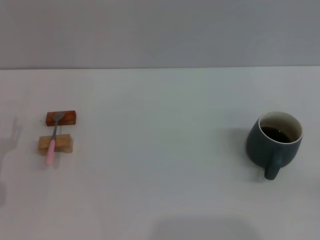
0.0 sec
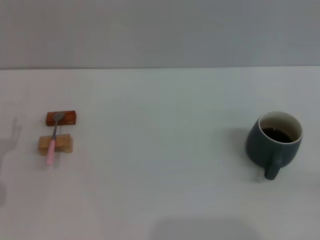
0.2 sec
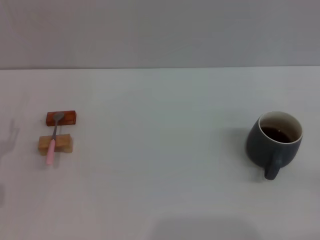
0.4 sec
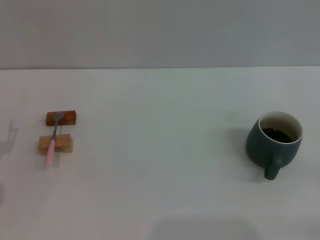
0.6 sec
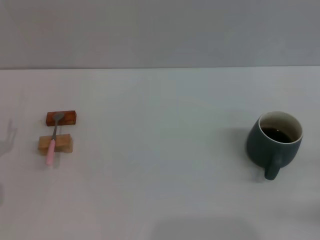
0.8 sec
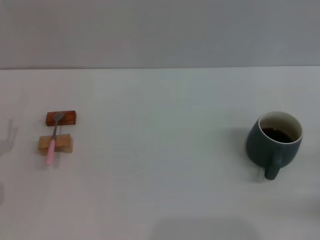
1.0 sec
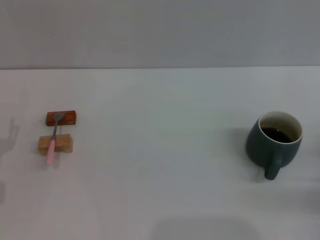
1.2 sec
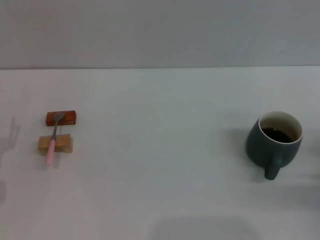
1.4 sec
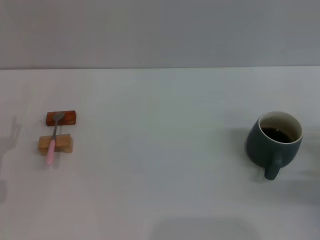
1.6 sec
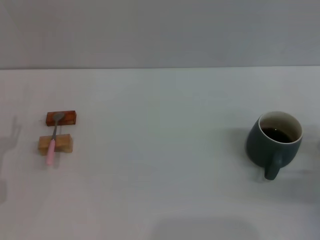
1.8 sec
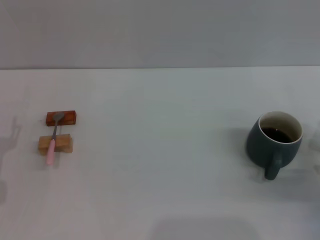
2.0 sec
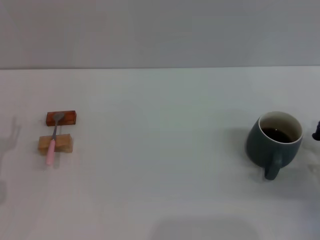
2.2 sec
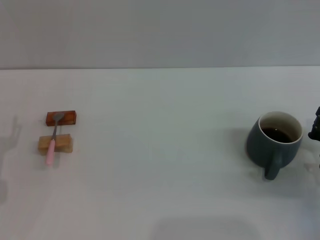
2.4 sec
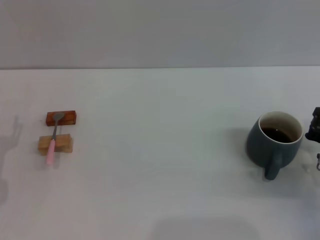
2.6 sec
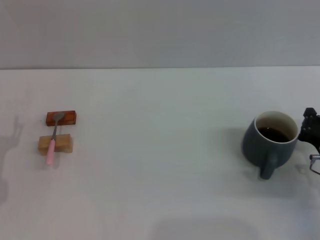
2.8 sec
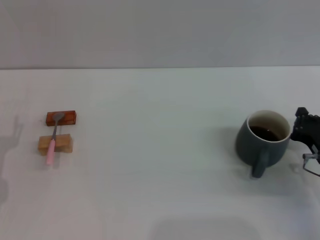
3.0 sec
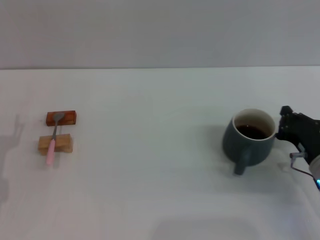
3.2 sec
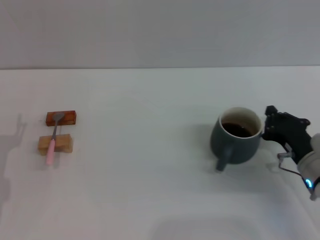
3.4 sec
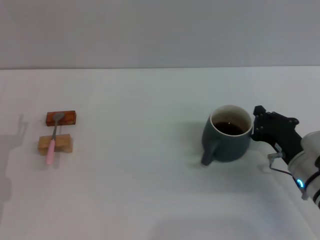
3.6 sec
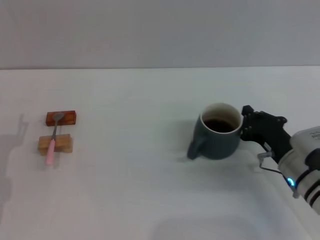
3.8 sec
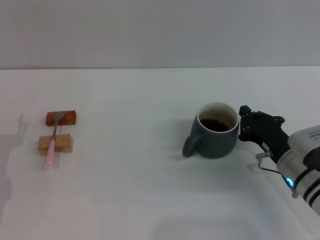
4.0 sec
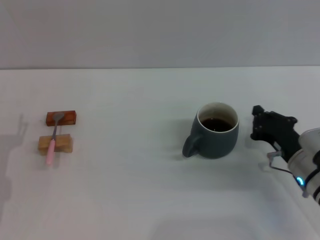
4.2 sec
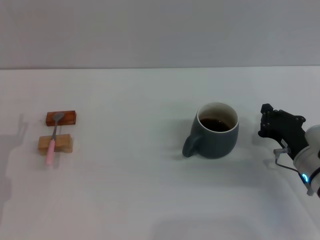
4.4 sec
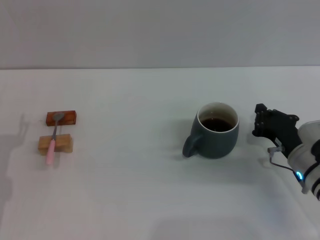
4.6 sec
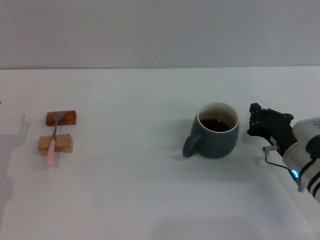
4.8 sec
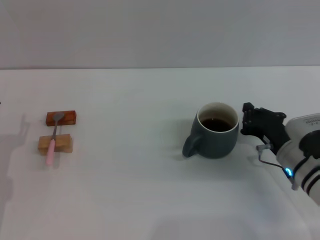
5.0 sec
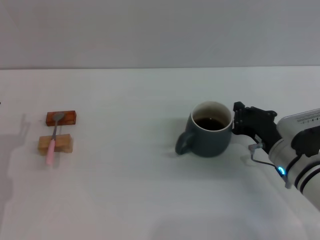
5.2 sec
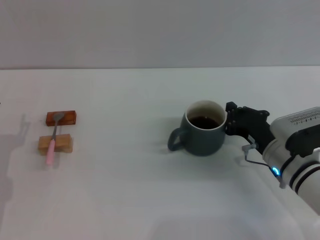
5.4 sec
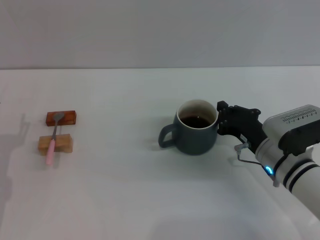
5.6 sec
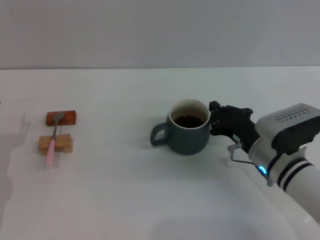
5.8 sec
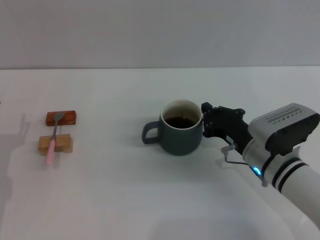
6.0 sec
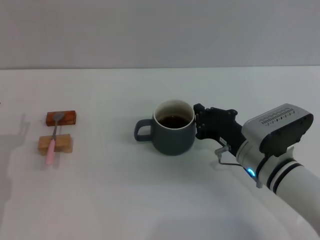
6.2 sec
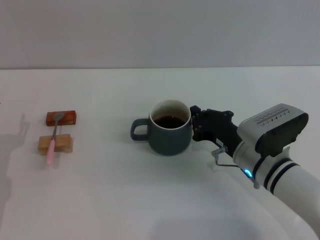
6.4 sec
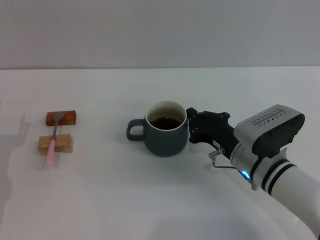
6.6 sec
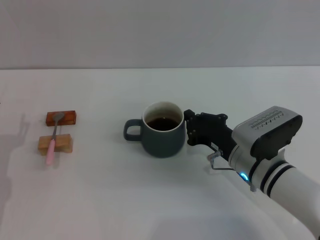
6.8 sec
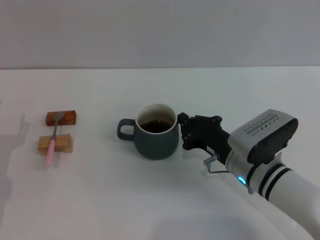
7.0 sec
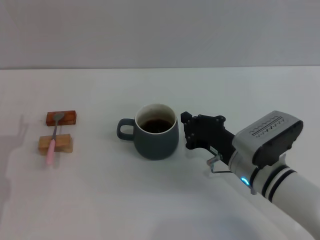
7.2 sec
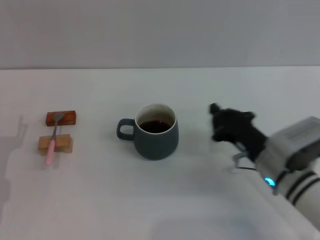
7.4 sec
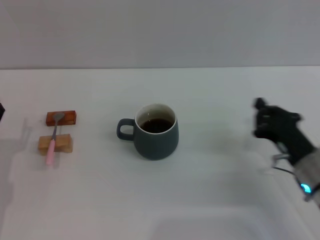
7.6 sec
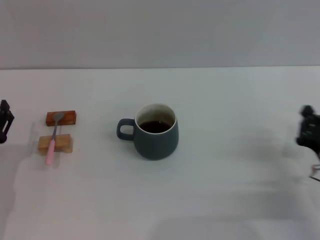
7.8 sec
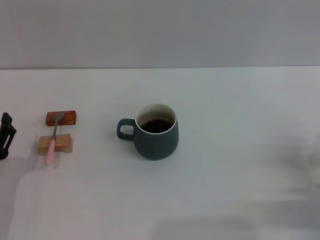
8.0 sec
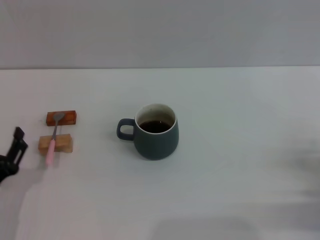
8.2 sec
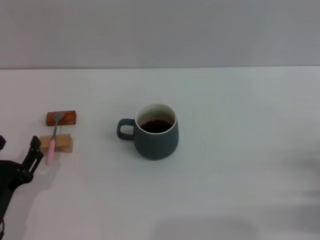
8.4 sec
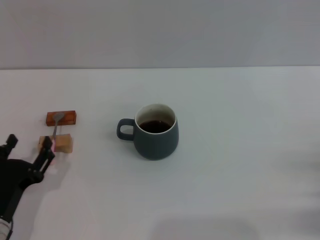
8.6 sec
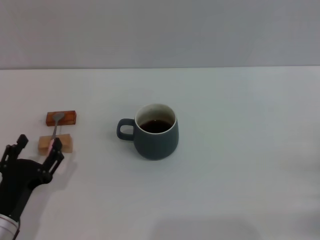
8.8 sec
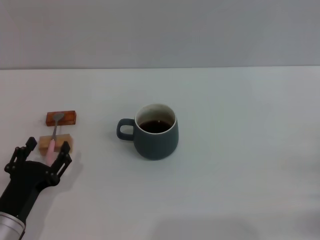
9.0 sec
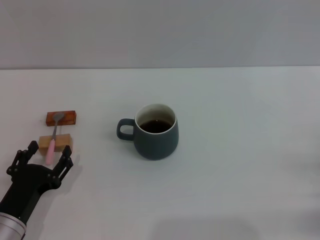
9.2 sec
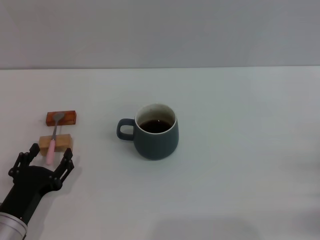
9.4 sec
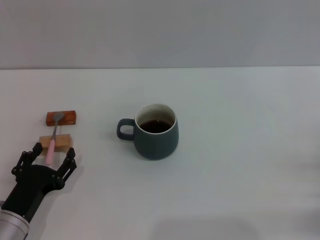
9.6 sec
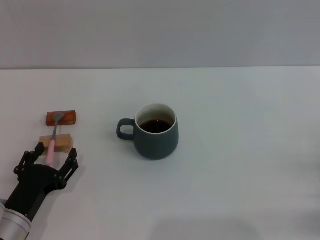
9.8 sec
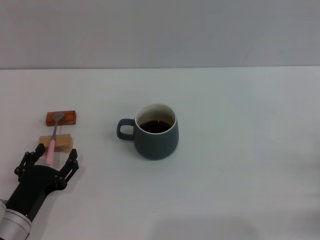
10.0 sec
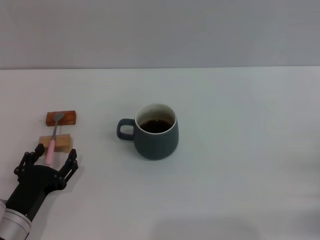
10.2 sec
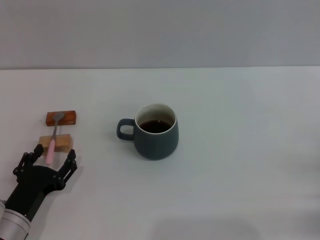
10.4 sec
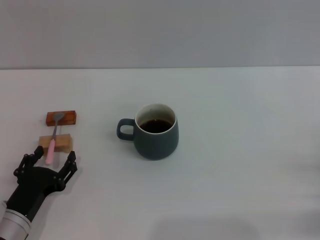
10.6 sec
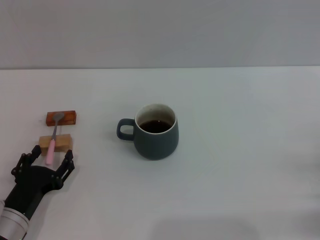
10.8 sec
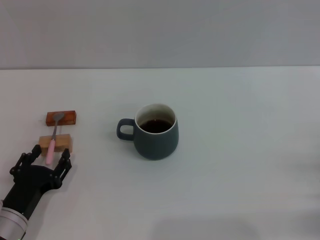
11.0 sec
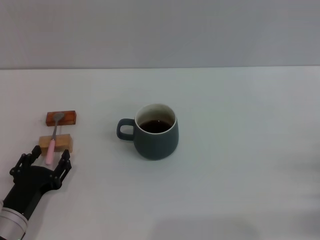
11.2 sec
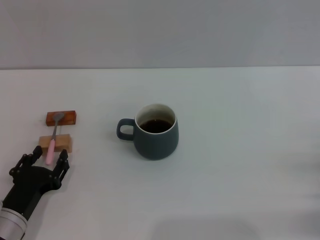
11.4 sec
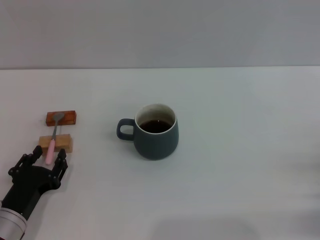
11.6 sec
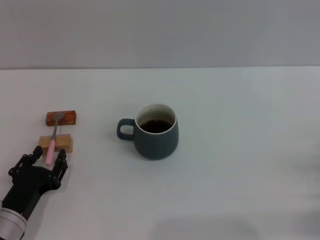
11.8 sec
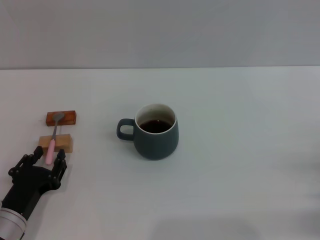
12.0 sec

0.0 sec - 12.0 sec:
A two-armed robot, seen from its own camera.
Task of the whole recording: Move the grey cup to the center, lift the pink spoon, stir it three times in the cup, and put the spoon into the cup.
Step, 0.0 sec - 7.4 sec: Move the cup with coffee to the center of view with the right gripper.
0.0 sec - 1.6 sec: The right gripper moves forward, roughly 10 cm.
1.6 sec - 3.0 sec: The right gripper ends up about 5 cm from where it was.
4.4 sec - 6.0 sec: The right gripper heads to the left, covering some 10 cm.
6.0 sec - 7.6 sec: The right gripper heads to the right, covering roughly 5 cm.
7.6 sec - 9.0 sec: The left gripper travels to the right and backward by approximately 10 cm, while the right gripper goes roughly 15 cm to the right and backward.
9.0 sec - 10.4 sec: The grippers stay close to where they were, moving slightly.
10.4 sec - 12.0 sec: The left gripper closes up.

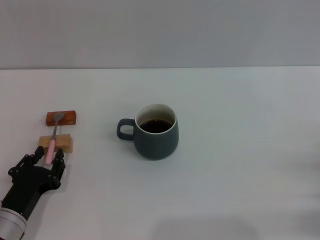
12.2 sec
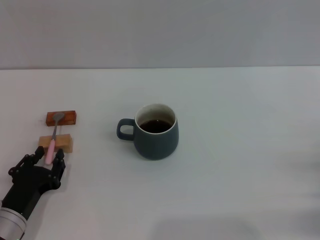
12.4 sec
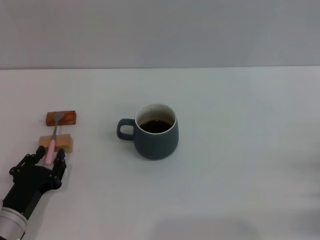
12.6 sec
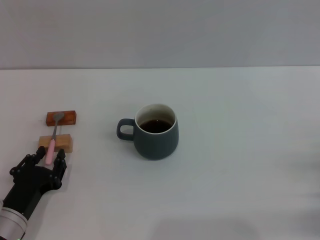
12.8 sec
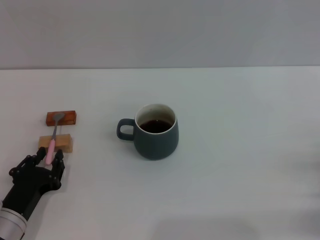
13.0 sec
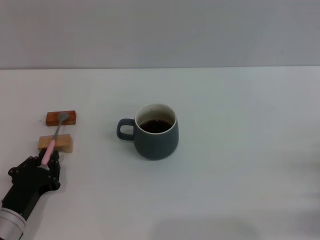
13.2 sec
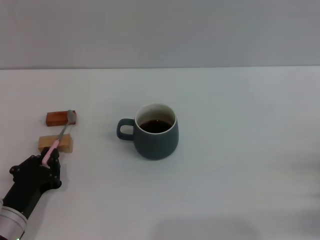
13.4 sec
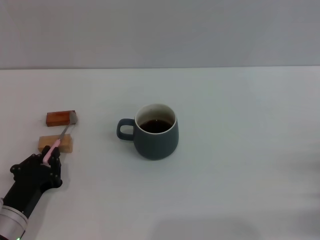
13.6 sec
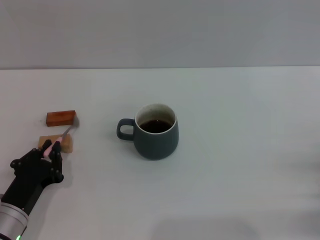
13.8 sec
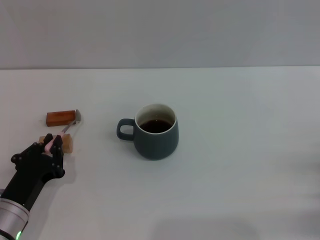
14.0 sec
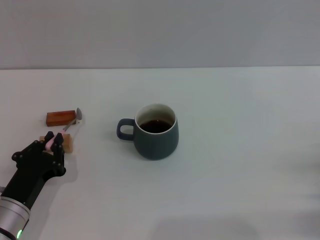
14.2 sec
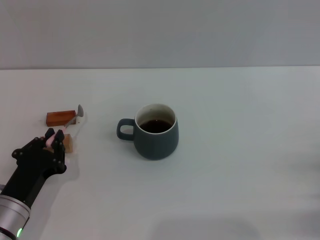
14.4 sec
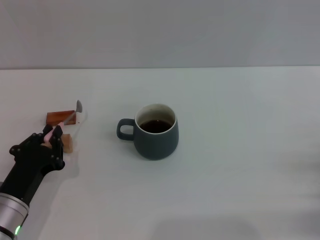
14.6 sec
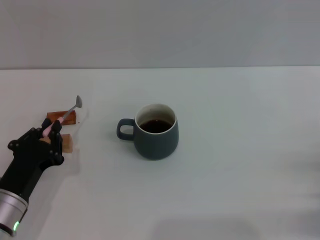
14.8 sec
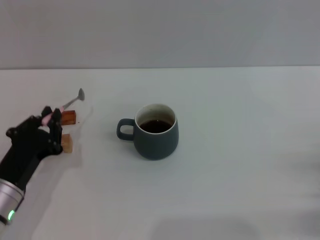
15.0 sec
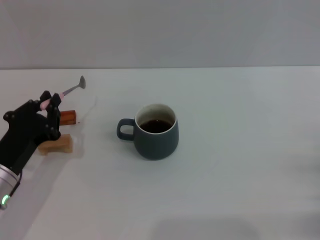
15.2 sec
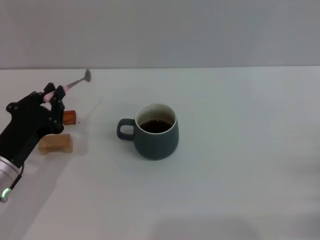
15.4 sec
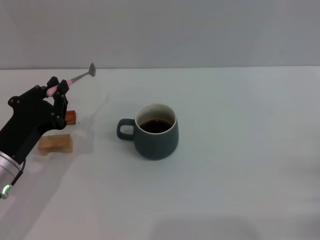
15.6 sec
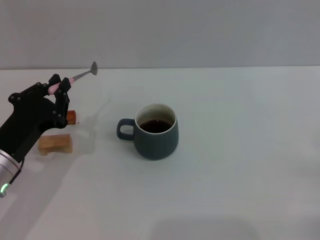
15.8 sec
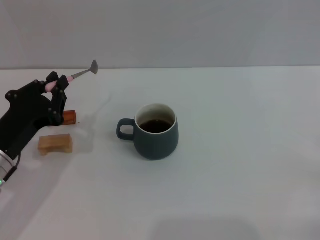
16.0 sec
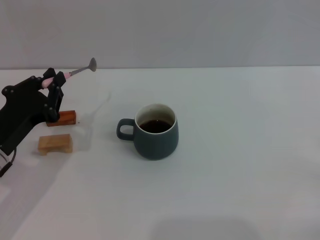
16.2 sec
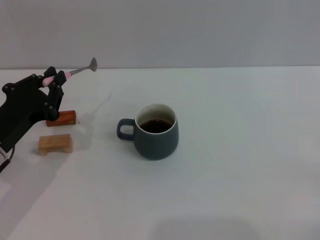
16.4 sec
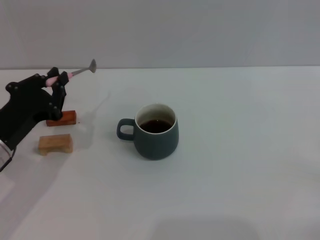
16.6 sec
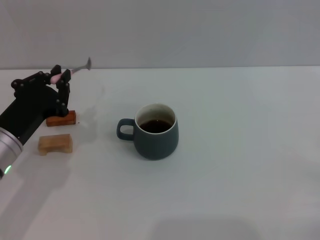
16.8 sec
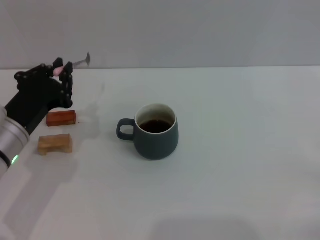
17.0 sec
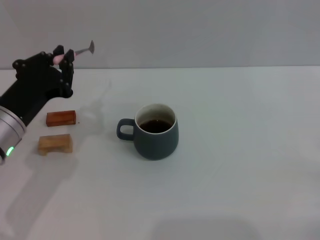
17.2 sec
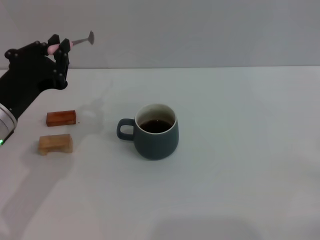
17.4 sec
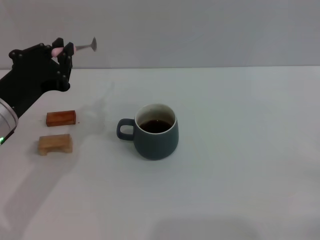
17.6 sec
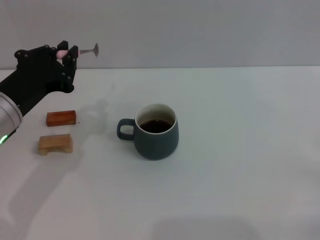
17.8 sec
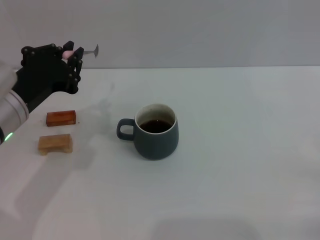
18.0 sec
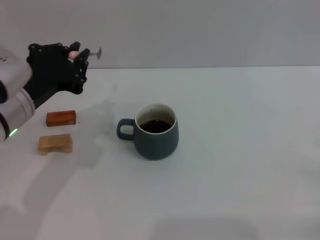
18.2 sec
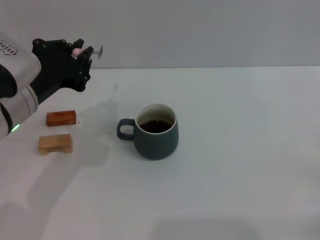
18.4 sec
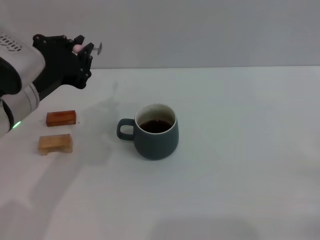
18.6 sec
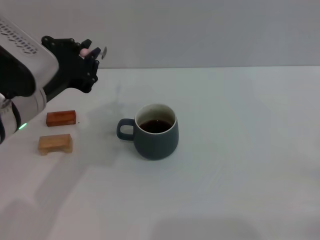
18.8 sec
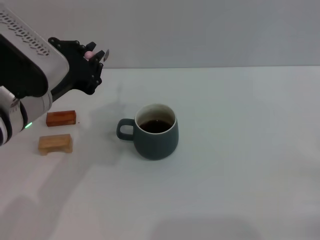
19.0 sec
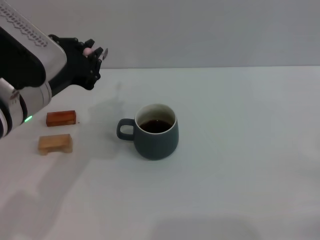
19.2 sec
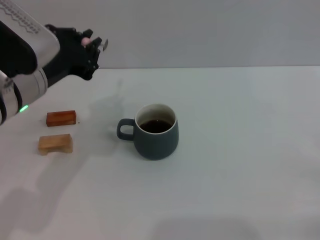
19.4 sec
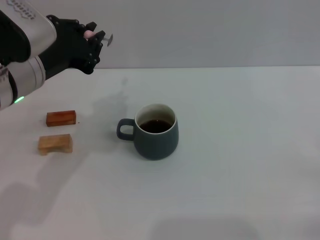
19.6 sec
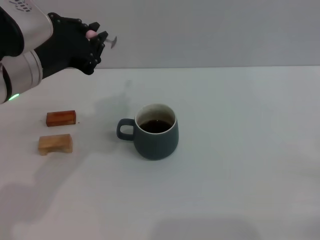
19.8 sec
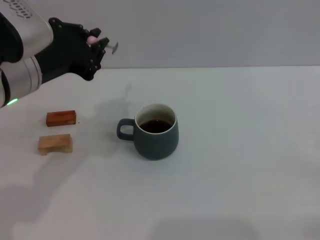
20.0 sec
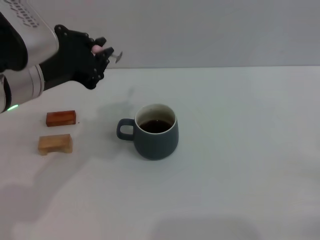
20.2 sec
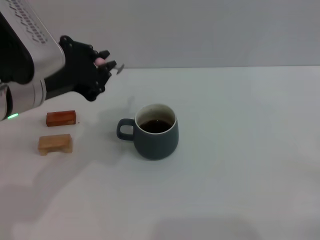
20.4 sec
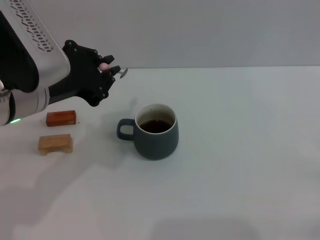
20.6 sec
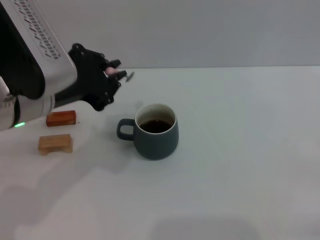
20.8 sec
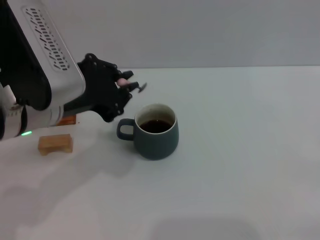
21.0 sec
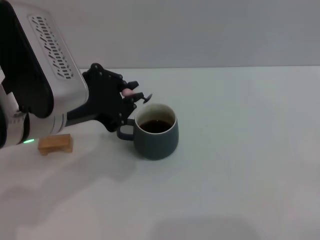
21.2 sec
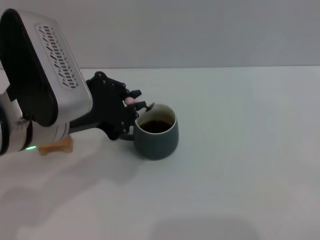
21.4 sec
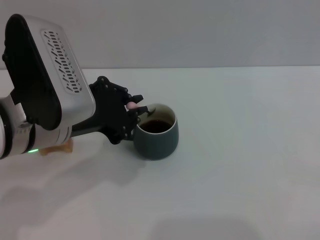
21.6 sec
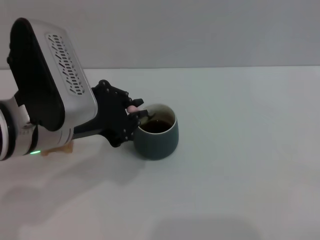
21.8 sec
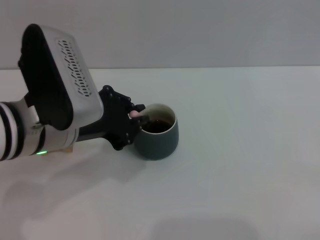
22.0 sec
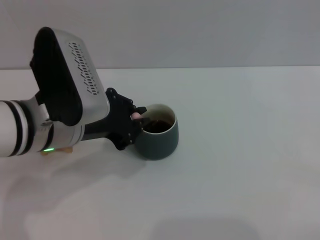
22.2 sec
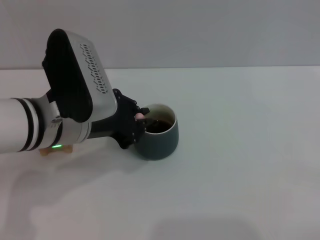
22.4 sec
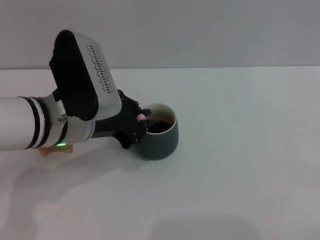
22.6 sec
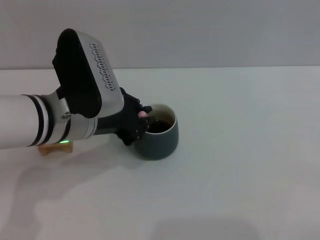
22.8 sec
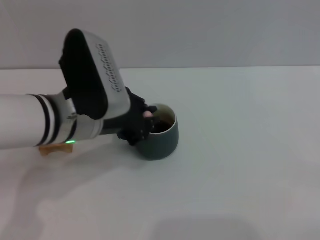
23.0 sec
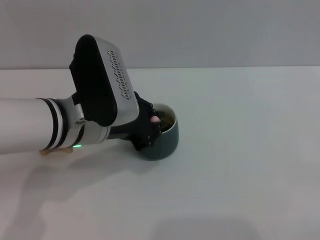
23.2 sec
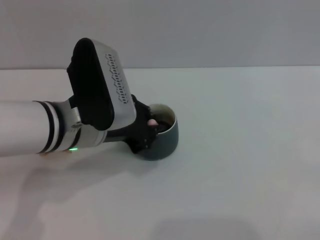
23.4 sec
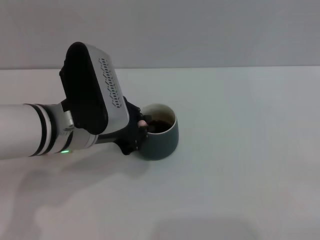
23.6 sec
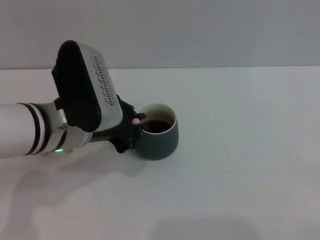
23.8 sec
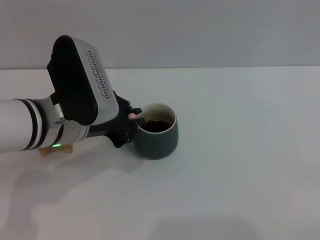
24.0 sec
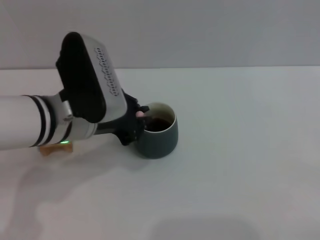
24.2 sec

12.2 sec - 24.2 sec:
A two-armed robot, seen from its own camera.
Task of the whole recording: Move the grey cup to the center, lift the pink spoon, stir it three times in the cup, and put the spoon into the cup.
Step, 12.2 sec - 16.4 sec: Pick up the spoon with the left gripper.
12.2 sec - 13.8 sec: The left gripper closes its fingers.
13.8 sec - 15.2 sec: The left gripper shifts some 5 cm upward.
15.2 sec - 16.6 sec: The left gripper changes place by about 5 cm.
16.6 sec - 18.2 sec: The left gripper shifts approximately 10 cm upward and to the right.
18.2 sec - 19.8 sec: The left gripper goes roughly 5 cm upward.
19.8 sec - 21.2 sec: There are only small adjustments of the grippers.
21.2 sec - 22.6 sec: The left gripper moves about 5 cm.
22.6 sec - 24.2 sec: The grippers stay close to where they were, moving slightly.
